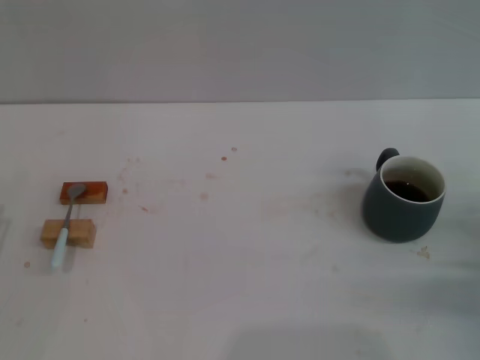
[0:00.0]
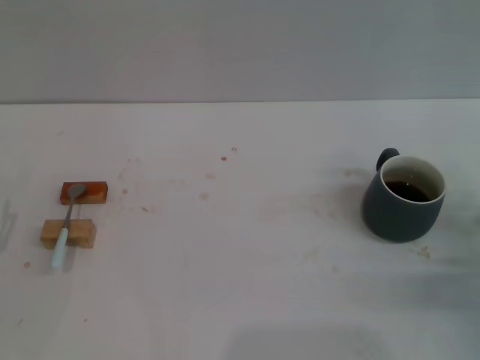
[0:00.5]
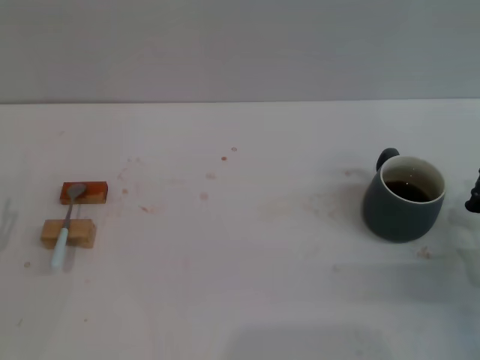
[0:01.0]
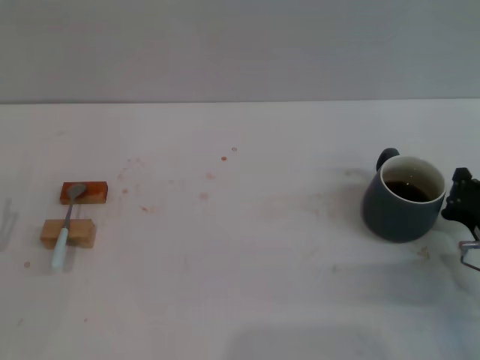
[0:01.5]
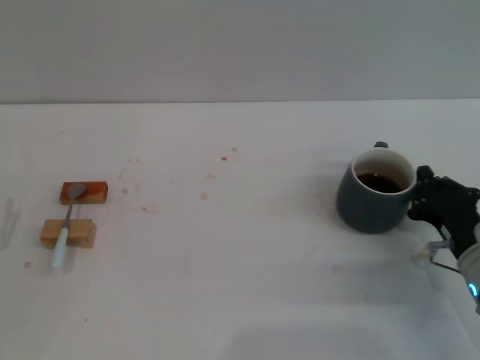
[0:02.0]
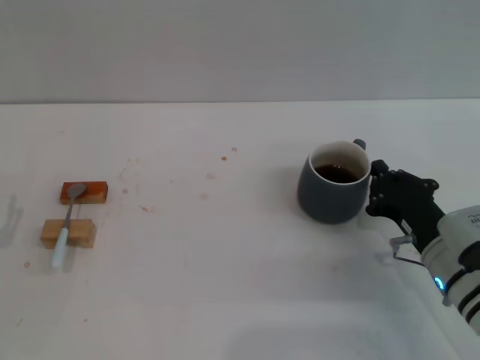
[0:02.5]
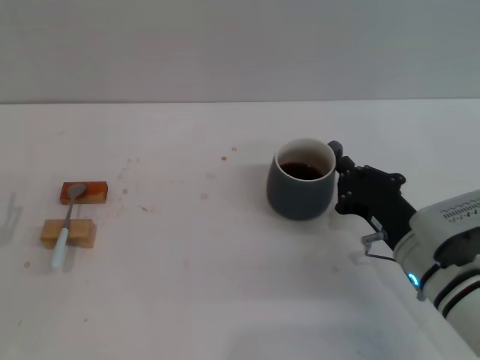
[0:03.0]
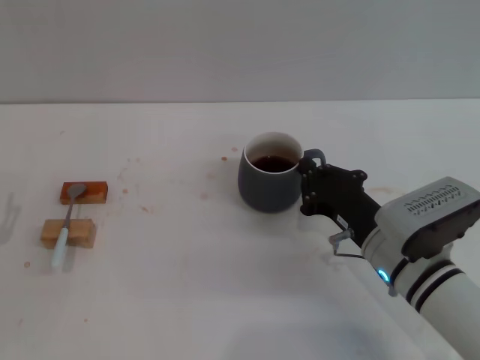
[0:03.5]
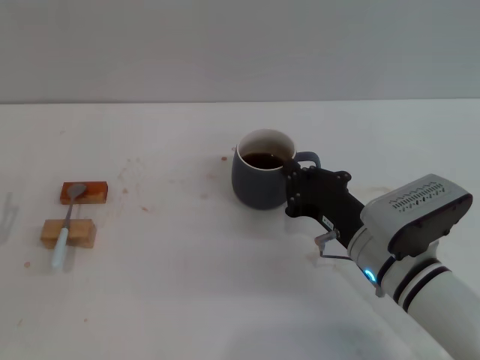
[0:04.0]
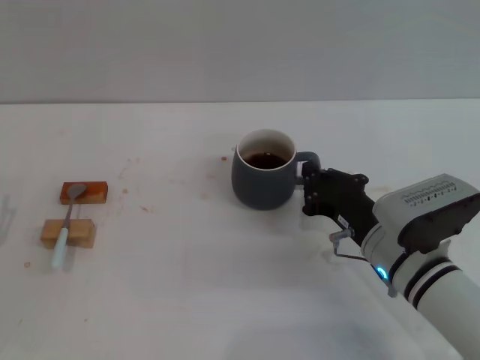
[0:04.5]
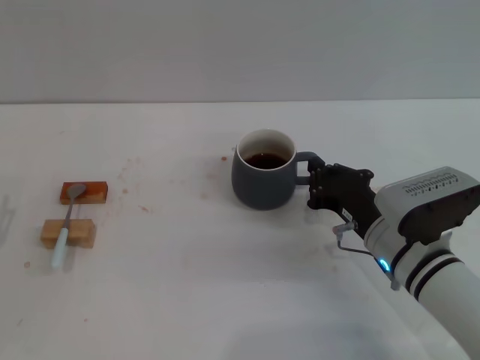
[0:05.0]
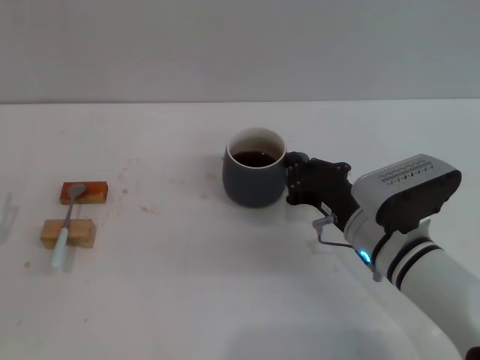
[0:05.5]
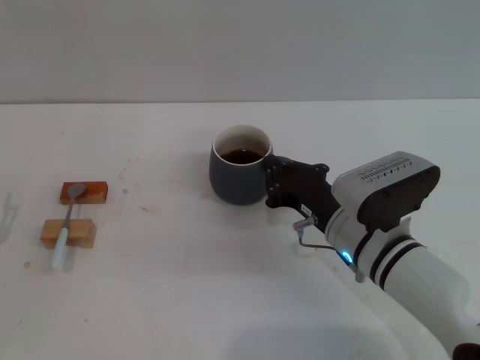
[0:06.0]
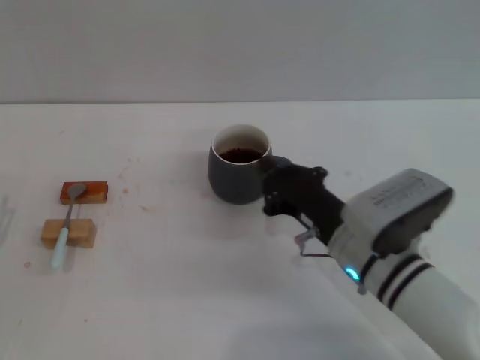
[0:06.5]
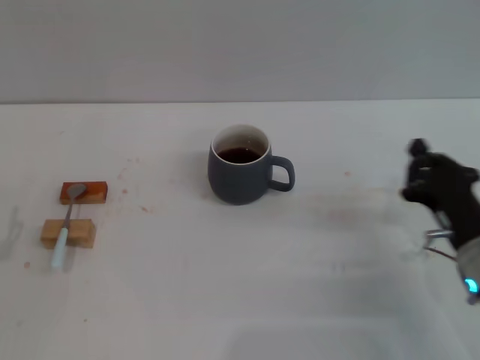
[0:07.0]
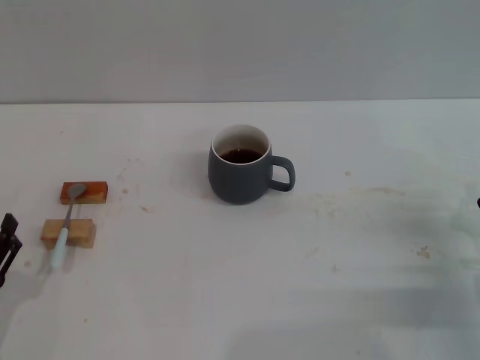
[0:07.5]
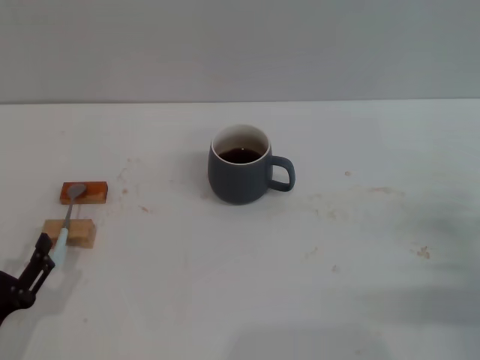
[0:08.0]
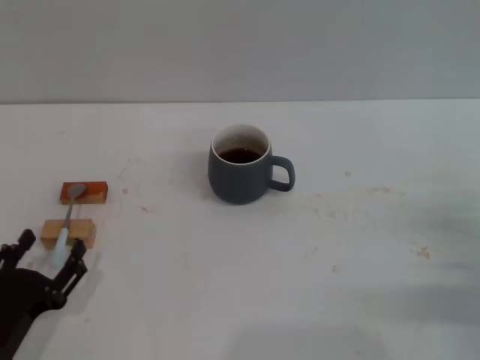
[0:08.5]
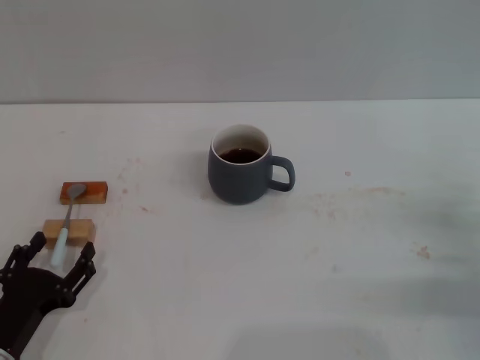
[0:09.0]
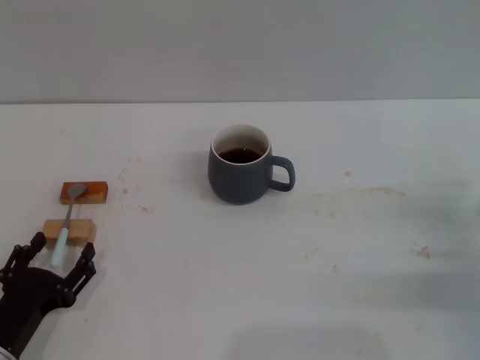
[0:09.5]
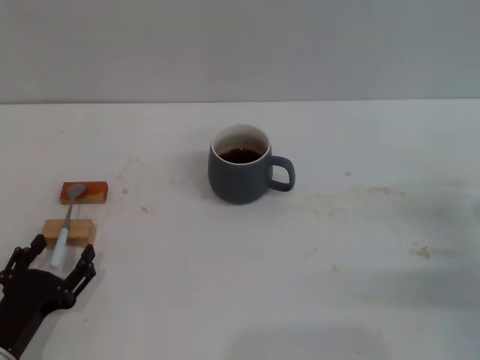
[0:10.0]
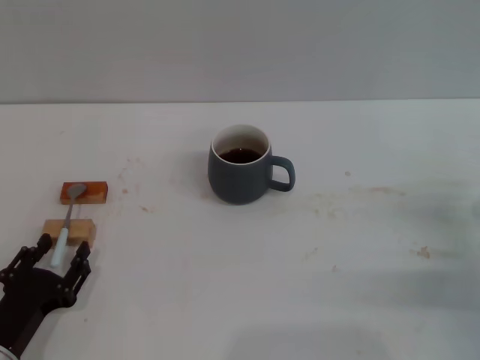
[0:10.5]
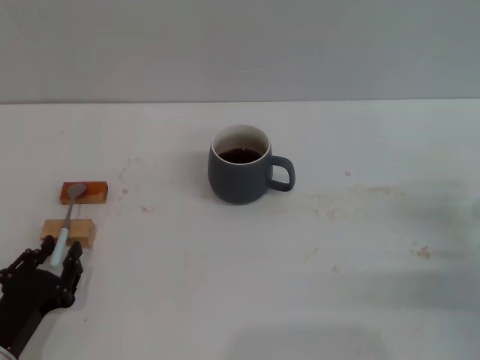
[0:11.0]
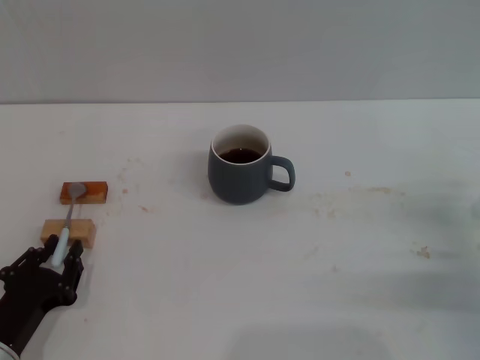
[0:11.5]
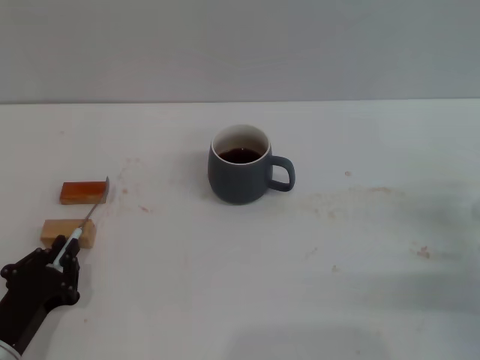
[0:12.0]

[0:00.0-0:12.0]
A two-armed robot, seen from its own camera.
Task of the whole recording: Move the grey cup to the center, lift the blue spoon, stir it three times in the cup, and put the spoon into the cup.
Step, 0:00.0 to 0:06.5: Move the cup with coffee to the center of view with the right gripper.
0:00.0 to 0:02.0: The right gripper is displaced to the left by about 5 cm.
0:02.0 to 0:04.0: The right gripper heads to the left, covering about 10 cm.
0:04.0 to 0:06.0: The grippers move only a little.
0:06.0 to 0:08.0: The right gripper goes approximately 20 cm to the right; the left gripper is displaced backward by approximately 5 cm.
0:08.0 to 0:10.0: There are only small adjustments of the grippers.
0:10.0 to 0:12.0: The left gripper closes up.

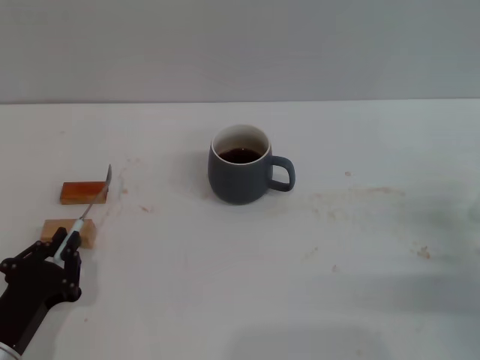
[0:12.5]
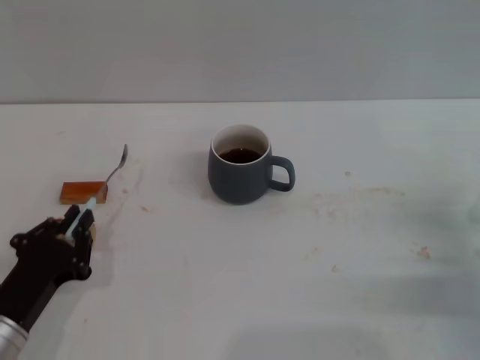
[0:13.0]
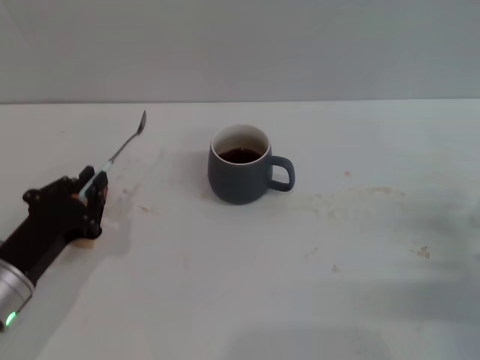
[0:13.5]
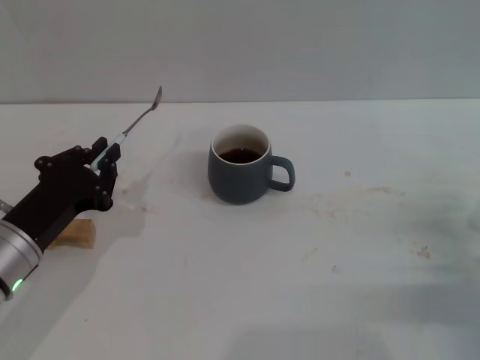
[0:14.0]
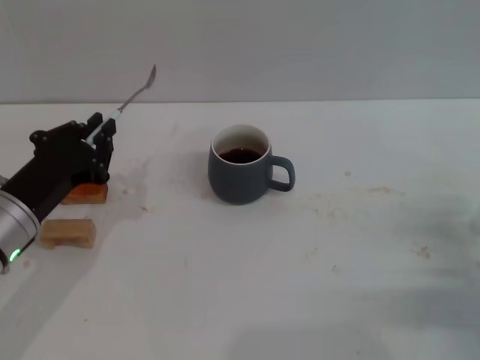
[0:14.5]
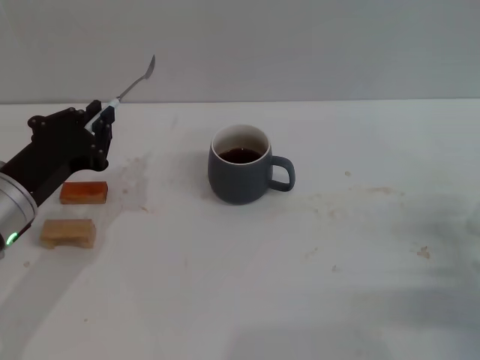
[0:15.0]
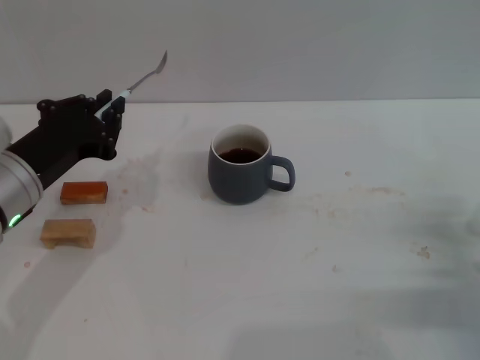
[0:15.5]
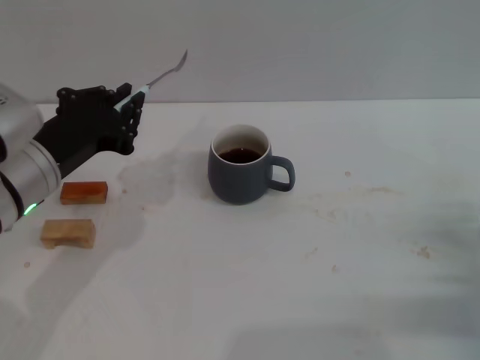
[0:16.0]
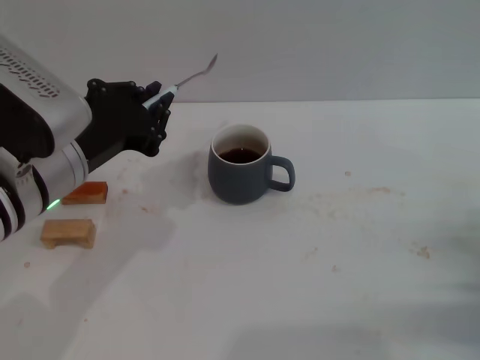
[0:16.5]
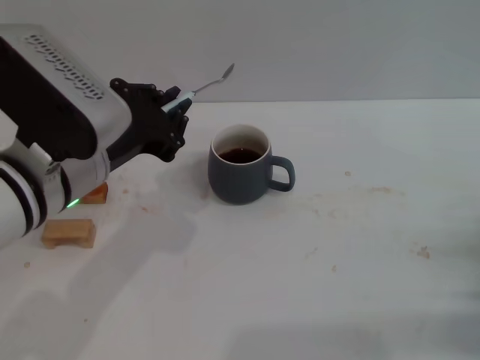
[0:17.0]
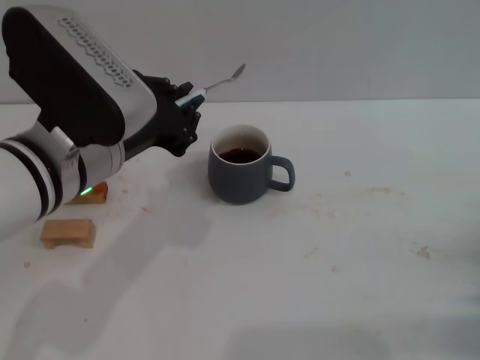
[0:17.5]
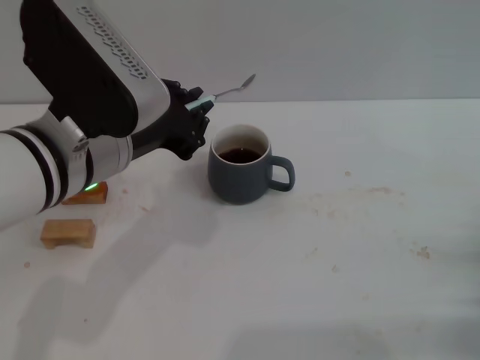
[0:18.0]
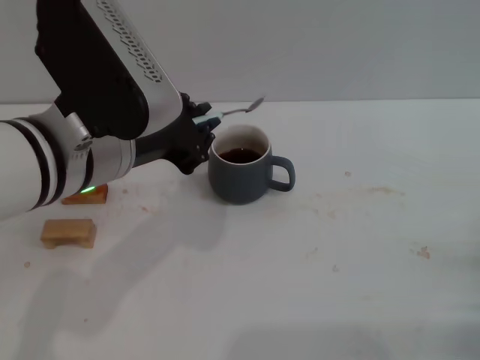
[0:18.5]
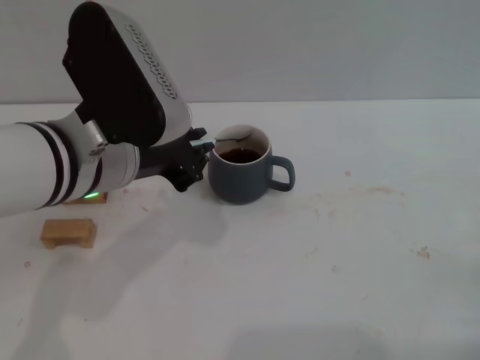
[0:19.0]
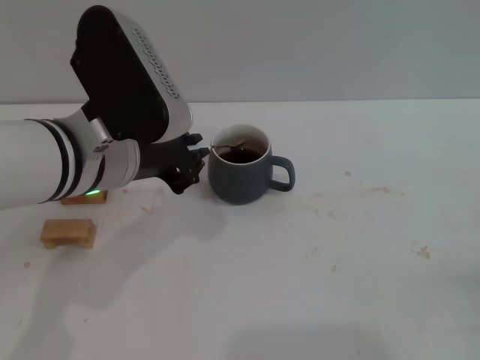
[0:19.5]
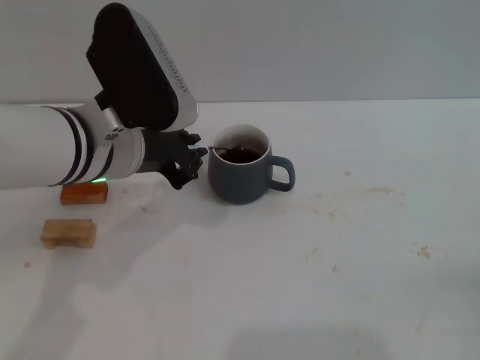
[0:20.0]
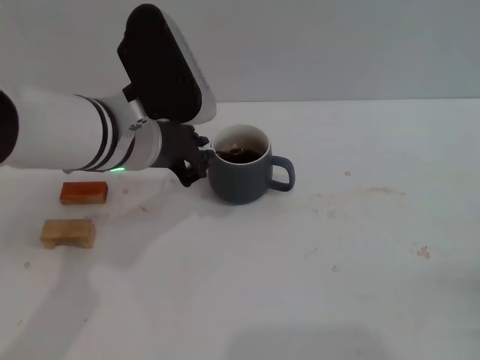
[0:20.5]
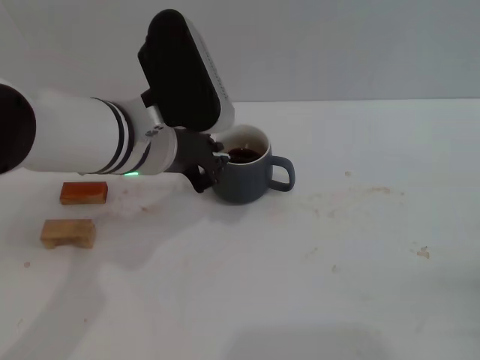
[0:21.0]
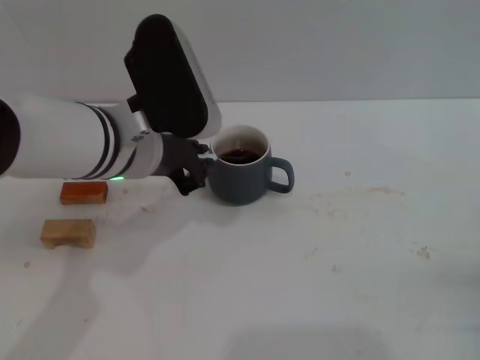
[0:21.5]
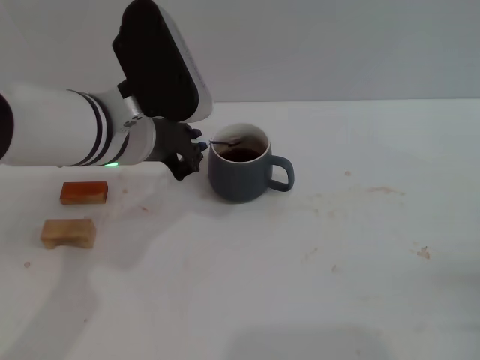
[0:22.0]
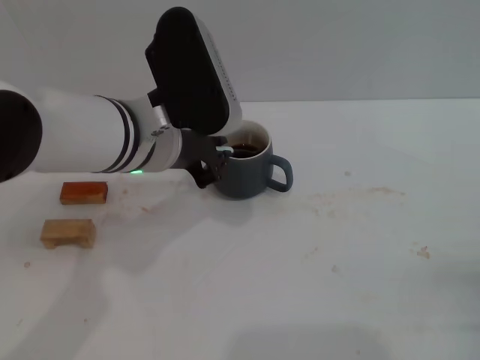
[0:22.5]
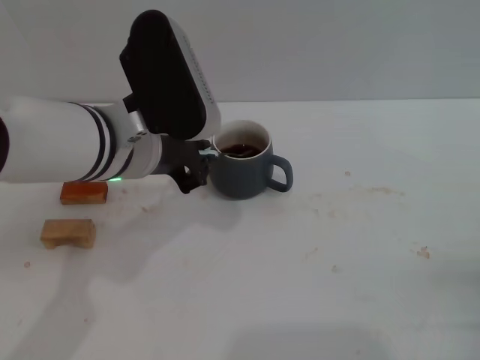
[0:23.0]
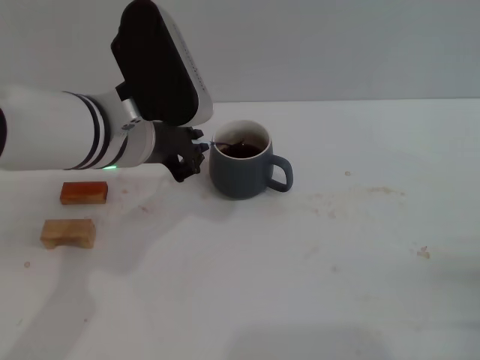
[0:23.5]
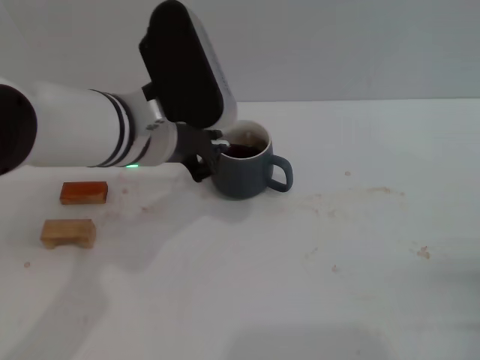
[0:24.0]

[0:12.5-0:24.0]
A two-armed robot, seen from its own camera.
Task of the whole recording: Move the grey cup to the center, lift the blue spoon, stir it three times in the cup, and put the spoon into the cup.
0:12.5 to 0:14.5: The left gripper is displaced forward and upward by about 15 cm.
0:14.5 to 0:16.5: The left gripper heads upward and to the right, covering approximately 10 cm.
0:16.5 to 0:18.5: The left gripper shifts by some 5 cm.
0:18.5 to 0:20.0: The left gripper moves approximately 5 cm.
0:20.0 to 0:24.0: The grippers make only small movements.

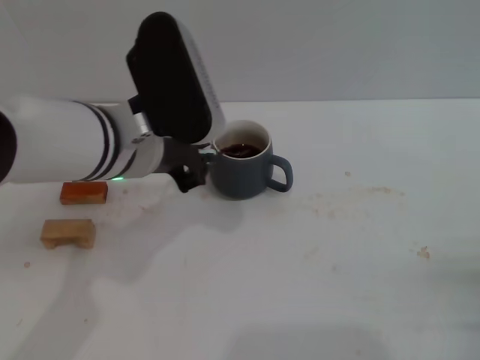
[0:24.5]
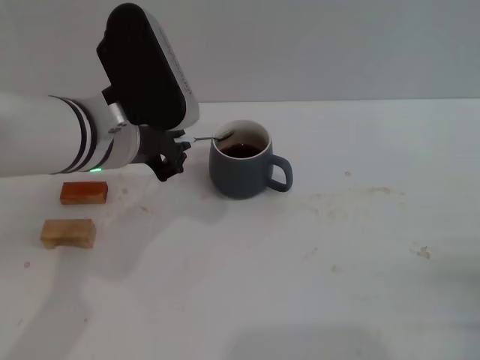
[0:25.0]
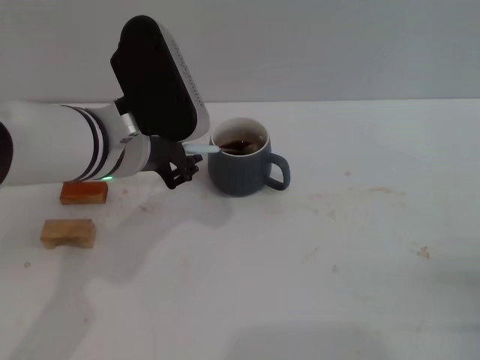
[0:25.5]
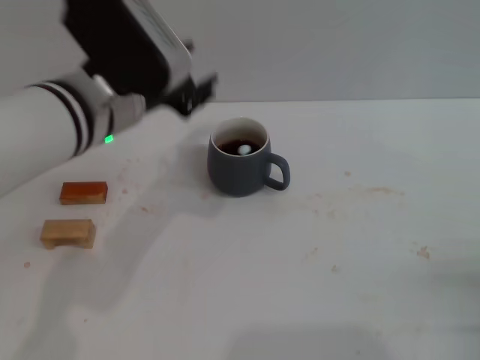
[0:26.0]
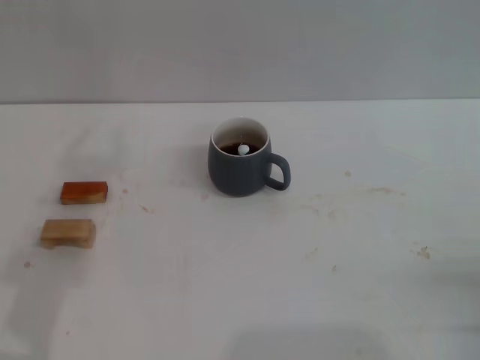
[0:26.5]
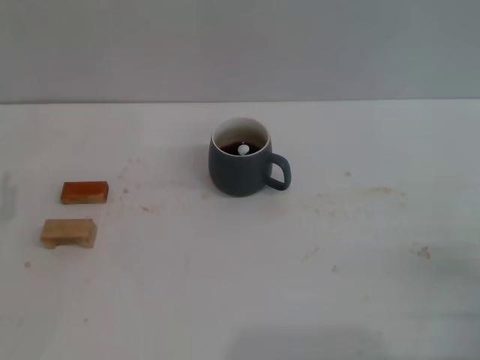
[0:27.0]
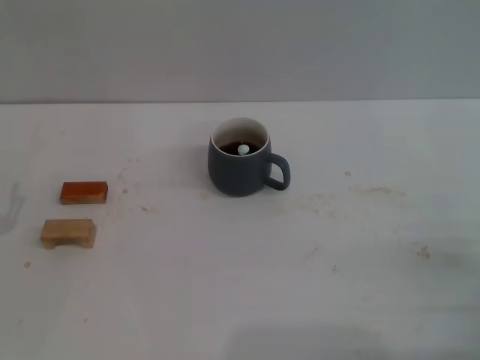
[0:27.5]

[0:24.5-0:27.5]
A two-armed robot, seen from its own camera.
Task of the whole recording: Move the grey cup to the center, lift the blue spoon, stir it three times in the cup, and put the spoon into the cup.
0:24.5 to 0:26.0: The left gripper opens its fingers.
0:26.0 to 0:27.5: The left gripper is displaced to the left, downward and backward by about 30 cm, and opens up.
